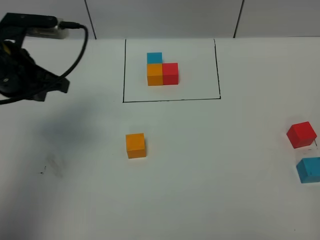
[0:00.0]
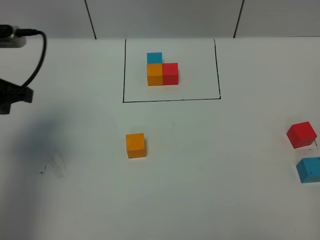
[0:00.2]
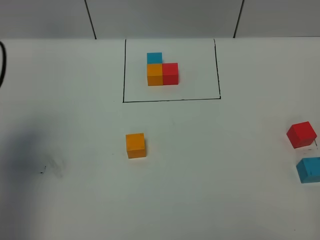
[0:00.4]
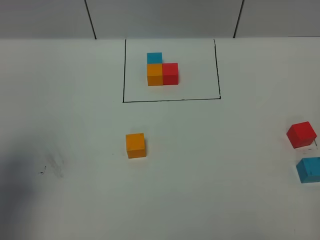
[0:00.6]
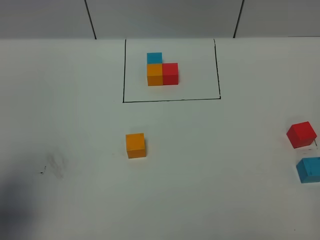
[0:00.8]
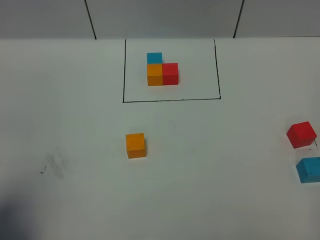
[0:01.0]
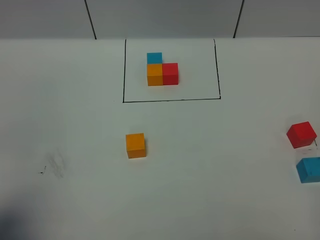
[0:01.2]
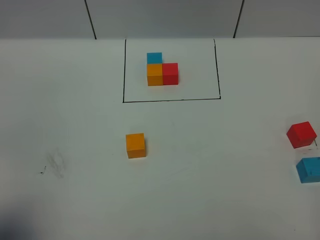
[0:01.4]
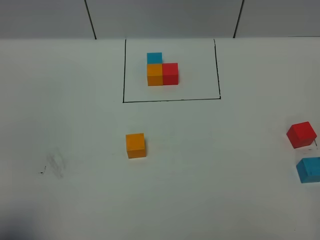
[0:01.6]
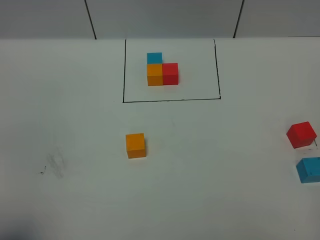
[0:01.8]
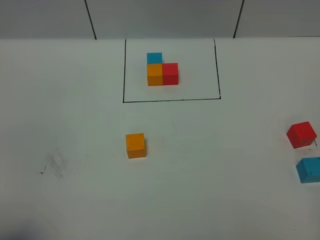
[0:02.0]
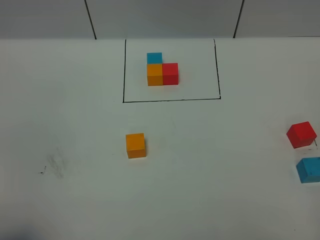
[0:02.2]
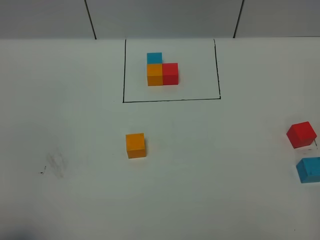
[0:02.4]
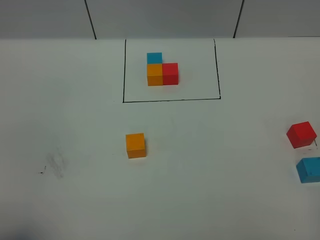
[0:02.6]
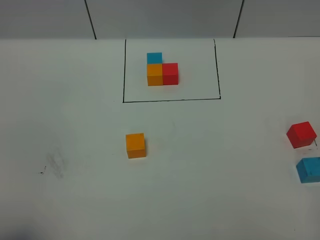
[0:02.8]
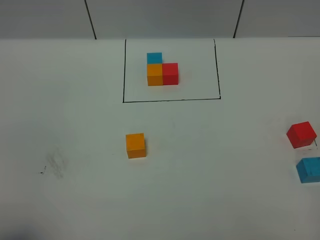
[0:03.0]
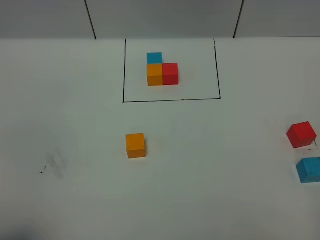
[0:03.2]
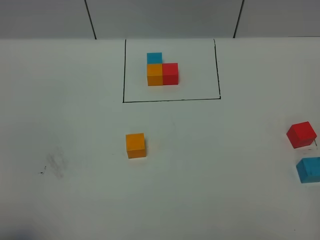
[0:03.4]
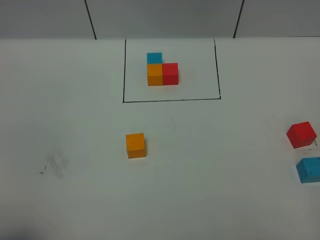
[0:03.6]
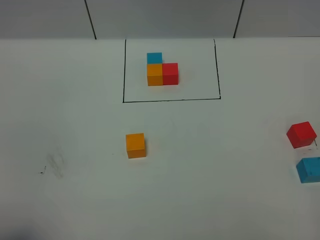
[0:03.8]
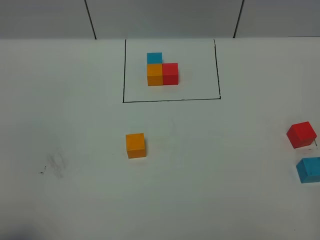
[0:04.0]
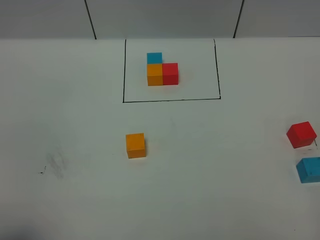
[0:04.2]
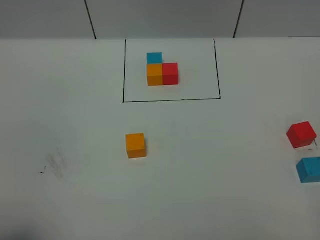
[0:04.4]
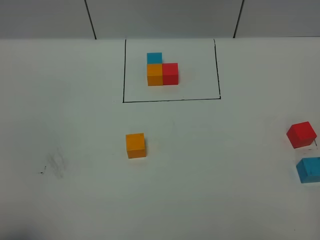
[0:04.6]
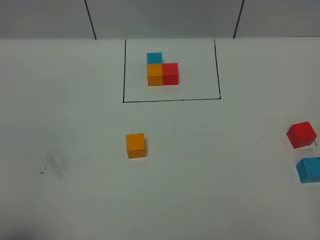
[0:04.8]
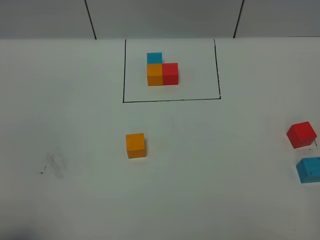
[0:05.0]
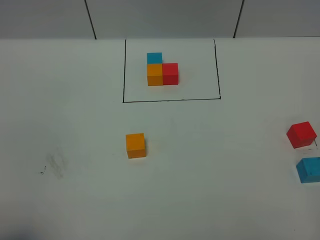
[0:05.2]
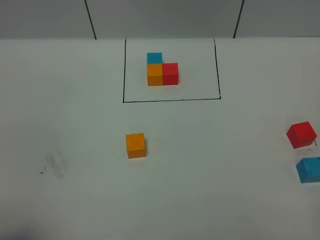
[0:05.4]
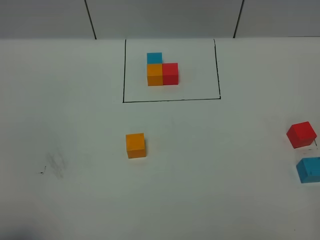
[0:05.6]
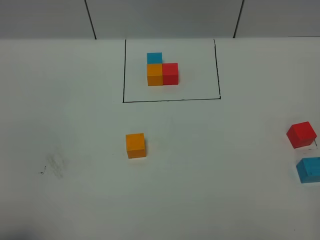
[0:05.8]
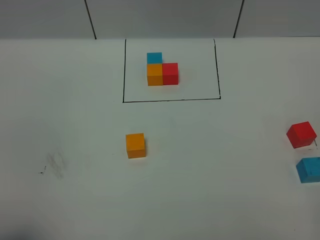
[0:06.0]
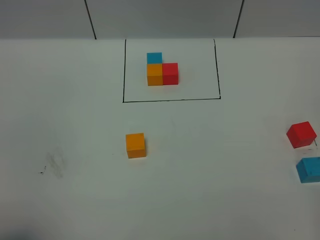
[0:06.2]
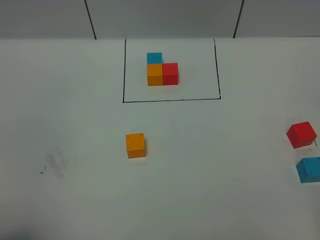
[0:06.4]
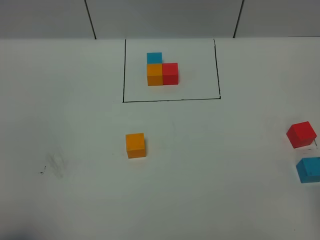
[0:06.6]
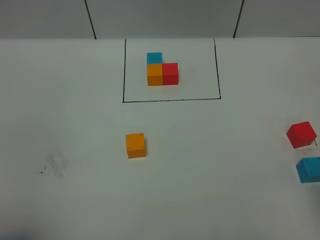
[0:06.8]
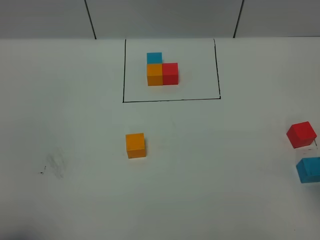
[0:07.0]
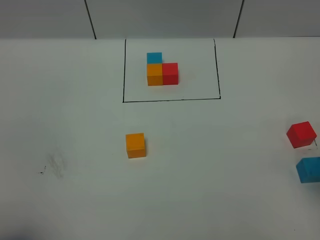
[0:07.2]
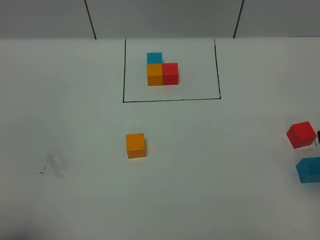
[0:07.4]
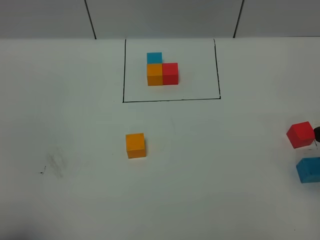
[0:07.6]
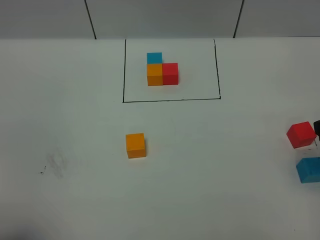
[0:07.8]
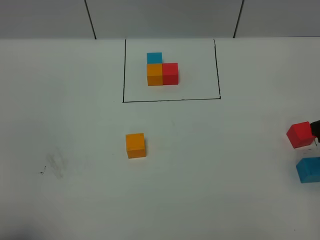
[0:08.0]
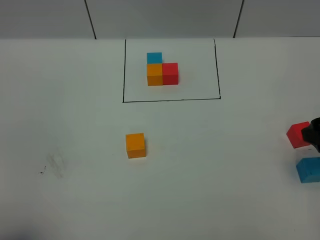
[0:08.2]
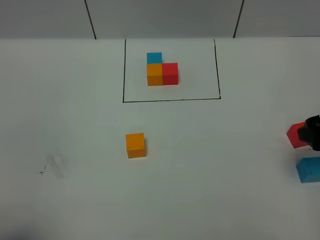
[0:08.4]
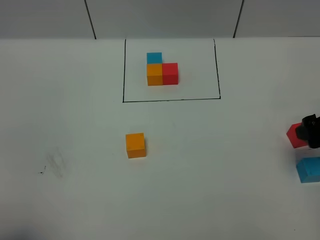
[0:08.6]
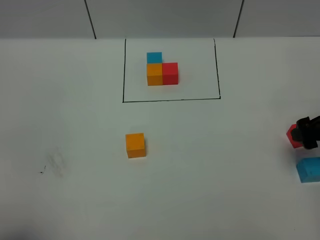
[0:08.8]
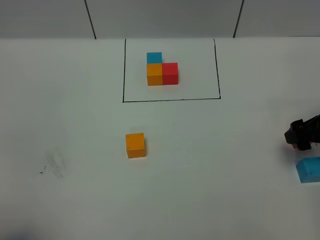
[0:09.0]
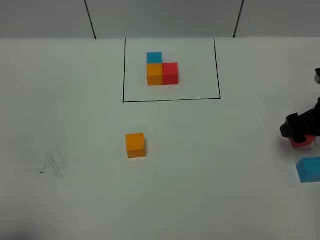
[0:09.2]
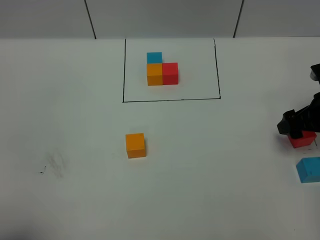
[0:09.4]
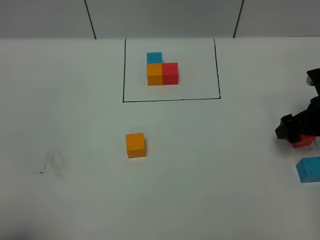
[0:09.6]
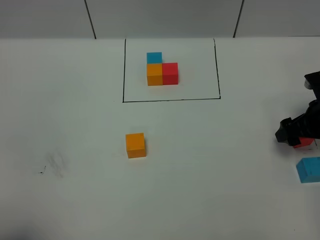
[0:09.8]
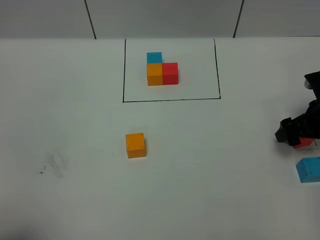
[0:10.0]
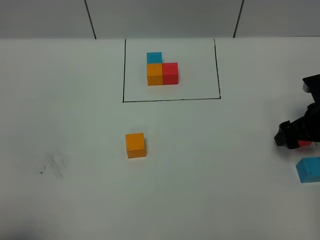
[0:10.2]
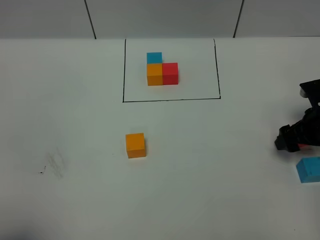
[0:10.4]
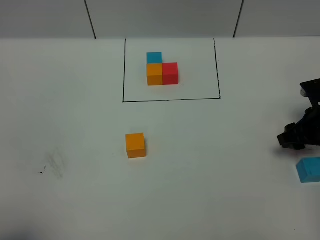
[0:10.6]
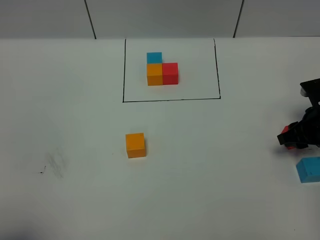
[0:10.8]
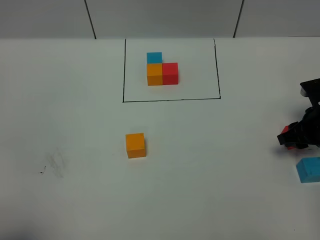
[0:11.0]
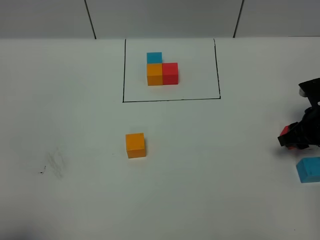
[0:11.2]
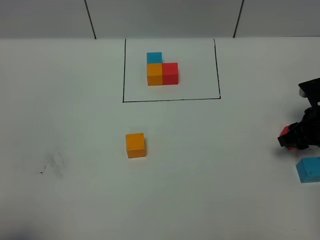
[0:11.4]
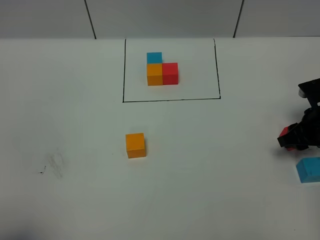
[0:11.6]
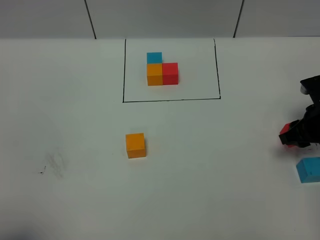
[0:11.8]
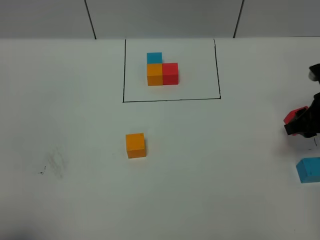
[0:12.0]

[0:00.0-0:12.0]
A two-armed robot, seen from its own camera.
Task of the whole recording: According to the building block template in front, assemble the scattered blocks together.
0:00.0 to 0:01.6: The left gripper travels backward by roughly 25 cm.
0:03.0 to 0:04.4: The two grippers keep their place.
0:07.6 to 0:09.0: The right gripper travels downward and forward by approximately 10 cm.
0:09.0 to 0:10.4: The right gripper shifts roughly 5 cm downward.
0:10.4 to 0:12.0: The right gripper is displaced upward by roughly 5 cm, and closes its fingers.

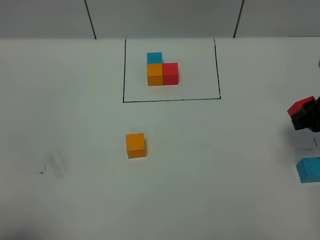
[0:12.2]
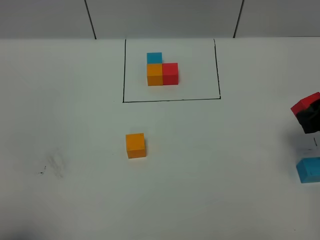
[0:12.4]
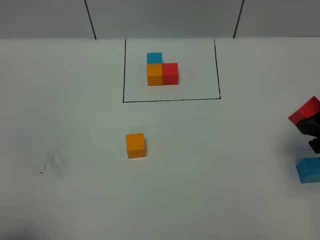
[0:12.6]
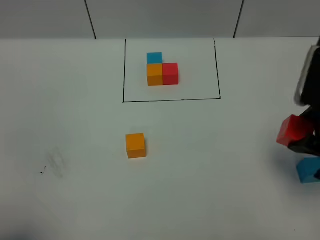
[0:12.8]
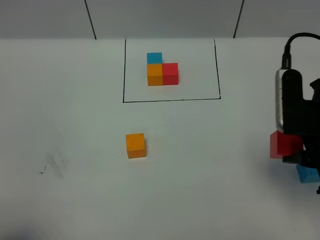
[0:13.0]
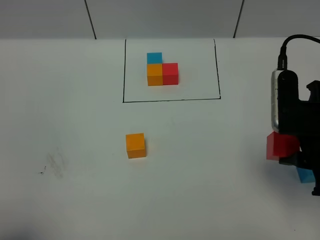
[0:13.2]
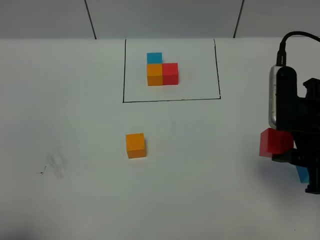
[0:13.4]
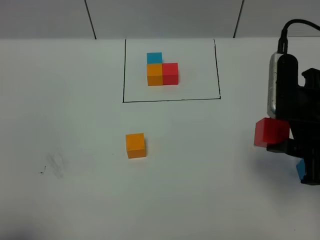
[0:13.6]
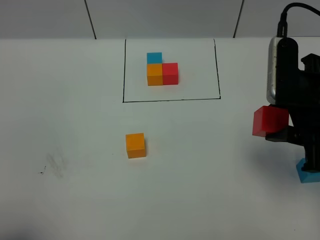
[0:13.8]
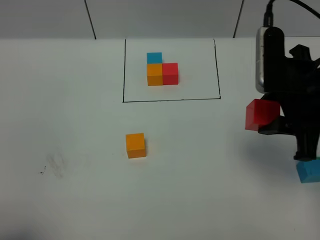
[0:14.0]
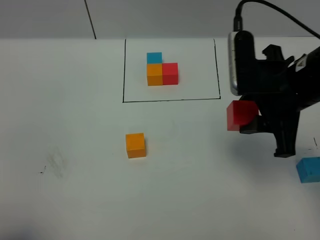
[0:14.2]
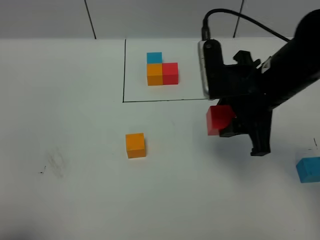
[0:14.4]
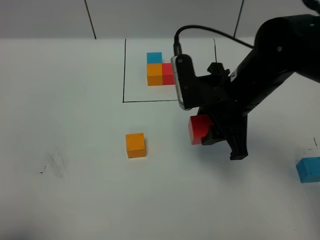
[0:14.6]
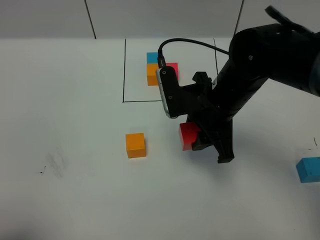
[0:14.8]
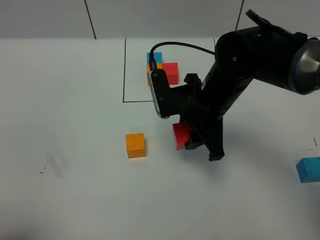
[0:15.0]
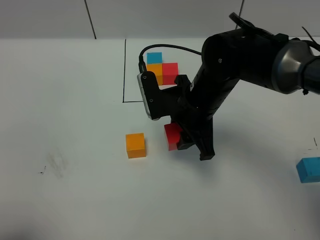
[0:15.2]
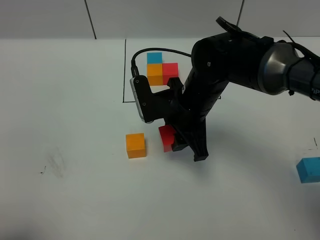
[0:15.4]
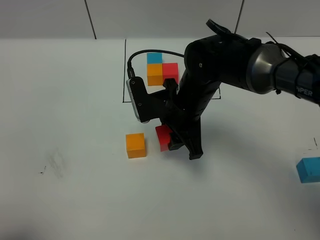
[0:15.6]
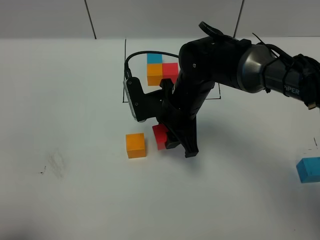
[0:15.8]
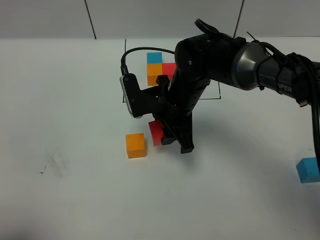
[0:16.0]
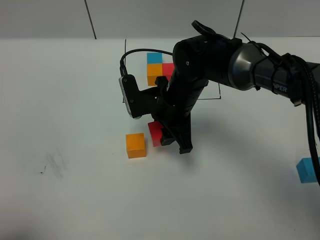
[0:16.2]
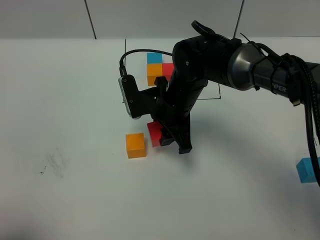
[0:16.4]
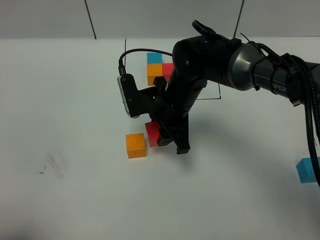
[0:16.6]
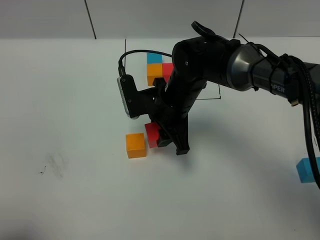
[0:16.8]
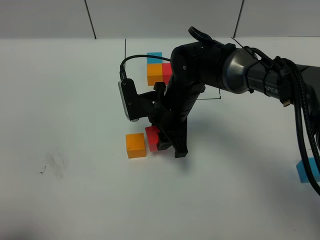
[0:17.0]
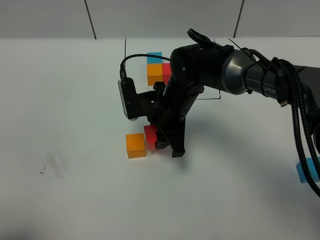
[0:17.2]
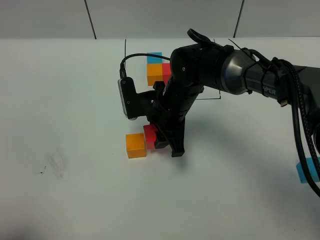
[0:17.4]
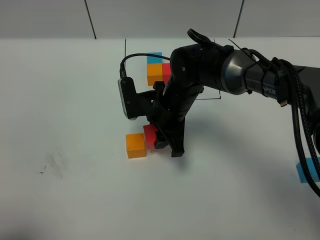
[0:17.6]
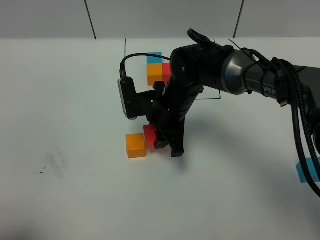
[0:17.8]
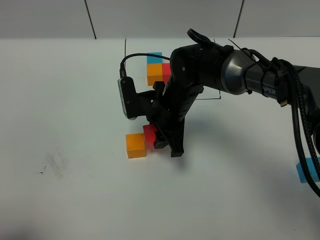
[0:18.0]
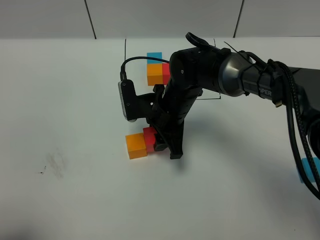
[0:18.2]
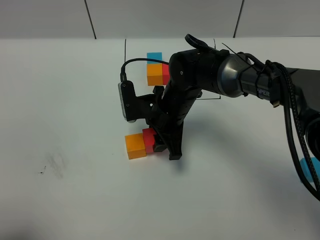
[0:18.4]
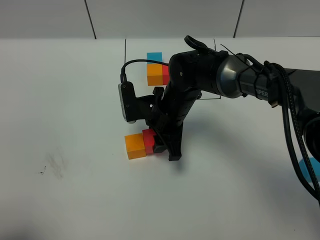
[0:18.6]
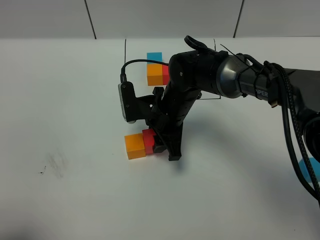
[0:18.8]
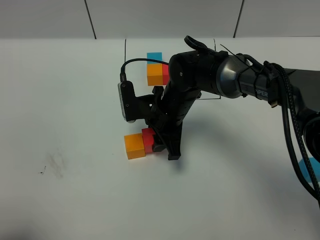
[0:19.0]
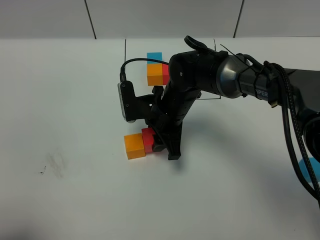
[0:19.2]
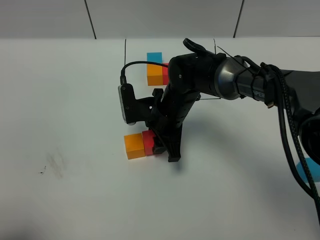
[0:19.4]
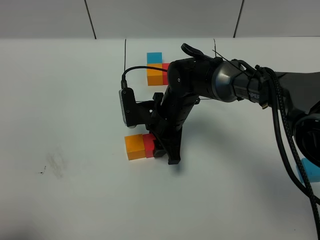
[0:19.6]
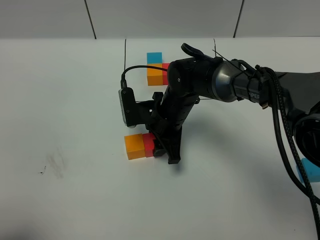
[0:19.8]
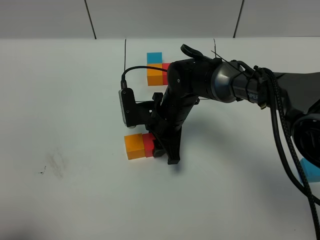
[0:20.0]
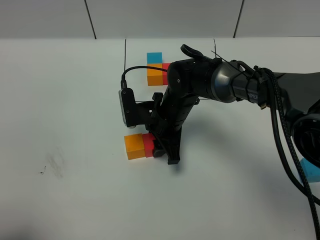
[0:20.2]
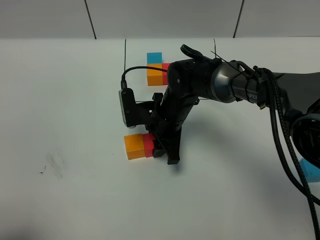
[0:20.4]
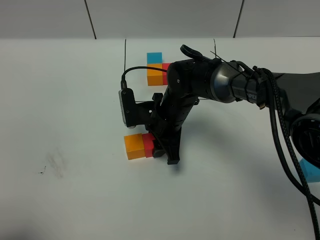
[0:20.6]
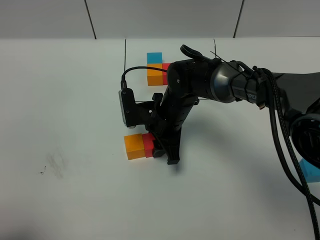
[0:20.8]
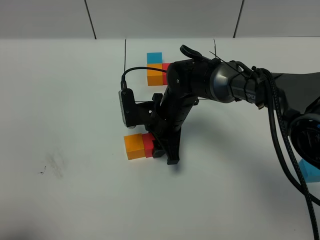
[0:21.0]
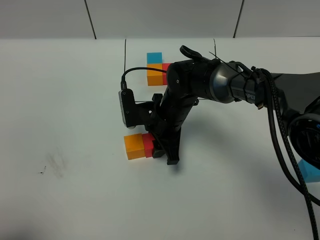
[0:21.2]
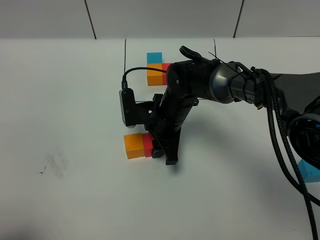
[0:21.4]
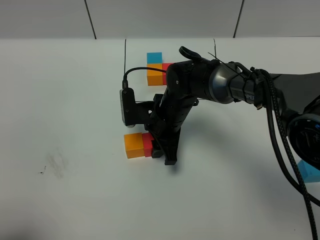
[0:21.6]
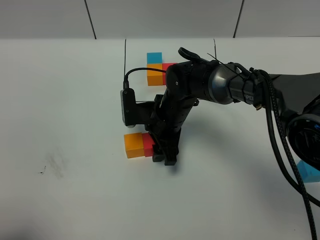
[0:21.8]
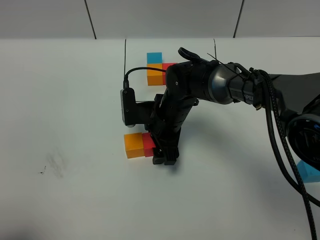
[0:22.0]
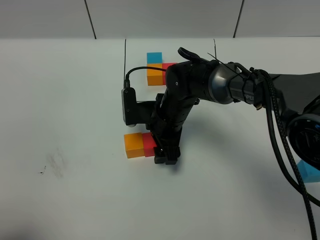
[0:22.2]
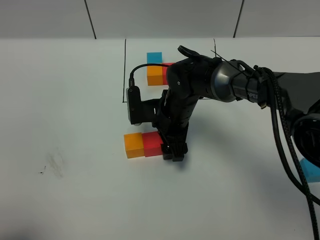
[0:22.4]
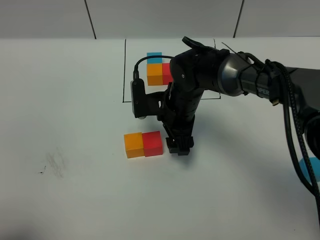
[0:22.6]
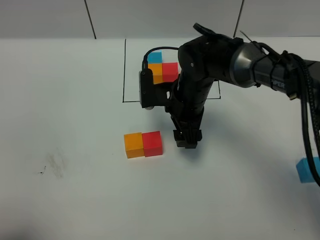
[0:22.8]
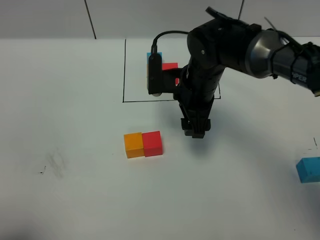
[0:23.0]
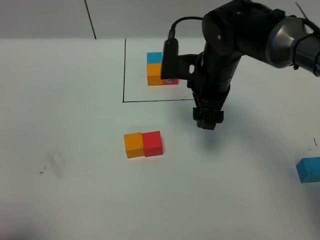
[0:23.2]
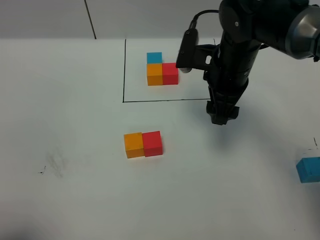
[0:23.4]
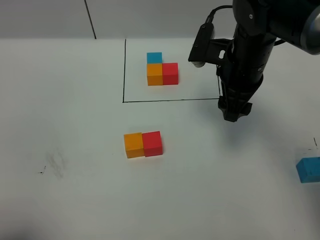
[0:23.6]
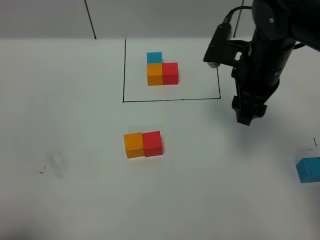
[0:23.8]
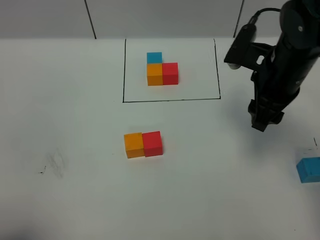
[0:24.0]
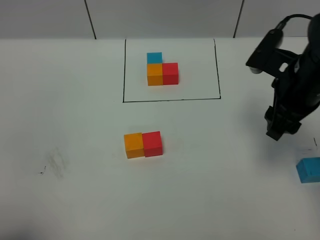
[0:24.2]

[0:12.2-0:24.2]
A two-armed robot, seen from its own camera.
Task of the whole recording: According to the building block template in front, assemble the scattered blocks together.
Step, 0:12.2 to 0:22.8: Put the red cube on the right of the orange cube.
0:12.2 to 0:13.8: The right gripper shifts some 15 cm to the left, upward and backward.
0:13.8 to 0:15.2: The right gripper shifts some 20 cm to the left, downward and forward.
0:15.2 to 0:16.6: The right gripper changes place by some 5 cm.
0:16.6 to 0:19.8: There are only small adjustments of the grippers.
0:19.8 to 0:21.2: Both grippers stay about where they are.
0:21.2 to 0:22.6: The grippers make only small movements.
0:22.6 to 0:24.2: The right gripper heads to the right and upward, covering about 20 cm.
